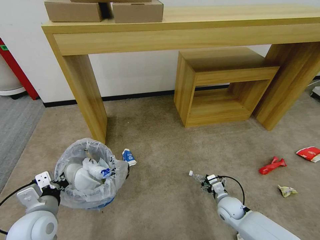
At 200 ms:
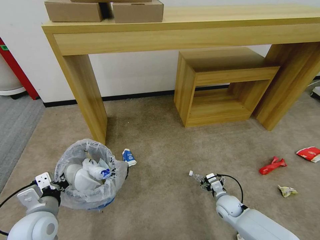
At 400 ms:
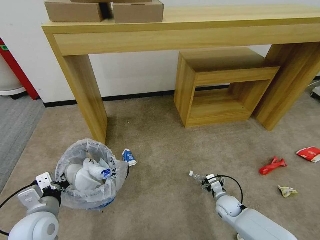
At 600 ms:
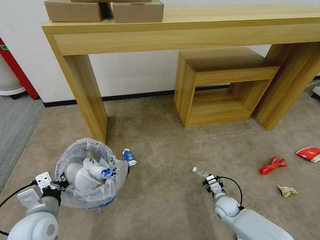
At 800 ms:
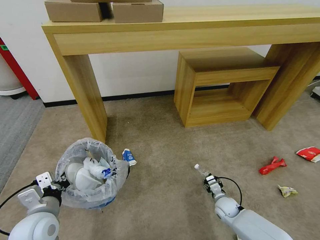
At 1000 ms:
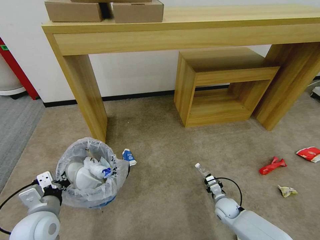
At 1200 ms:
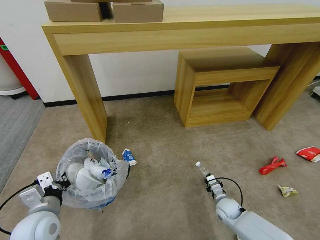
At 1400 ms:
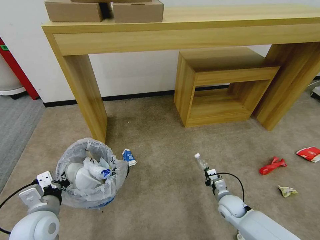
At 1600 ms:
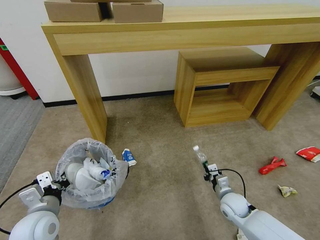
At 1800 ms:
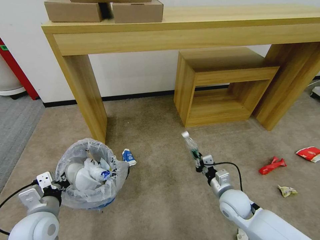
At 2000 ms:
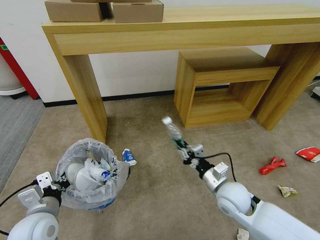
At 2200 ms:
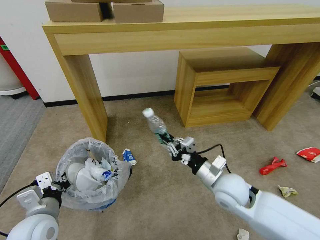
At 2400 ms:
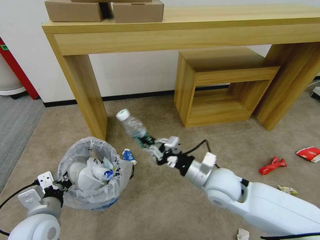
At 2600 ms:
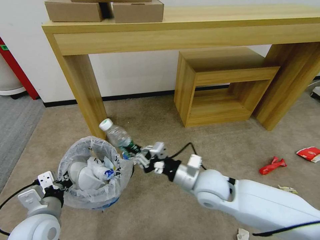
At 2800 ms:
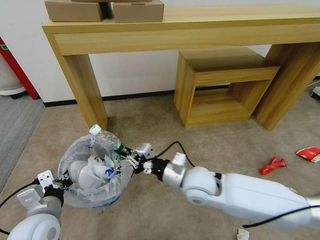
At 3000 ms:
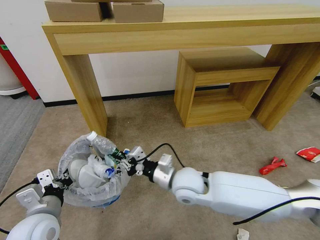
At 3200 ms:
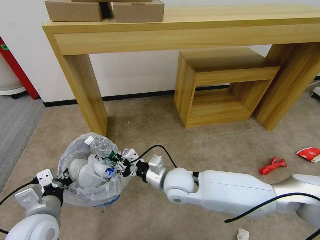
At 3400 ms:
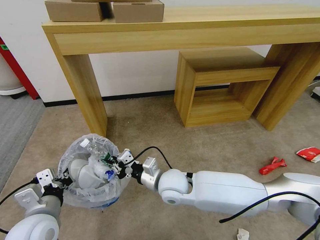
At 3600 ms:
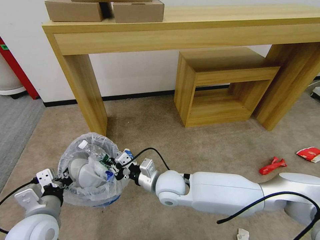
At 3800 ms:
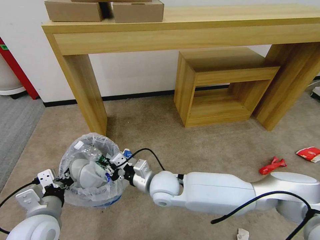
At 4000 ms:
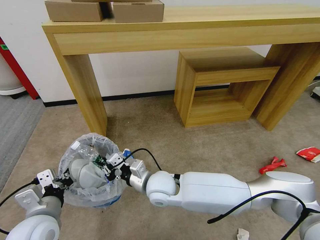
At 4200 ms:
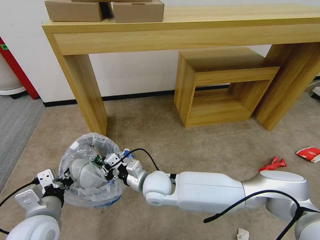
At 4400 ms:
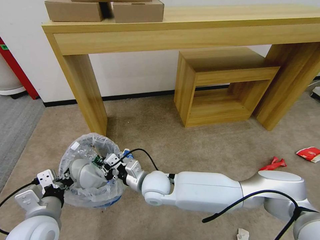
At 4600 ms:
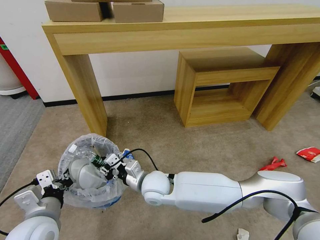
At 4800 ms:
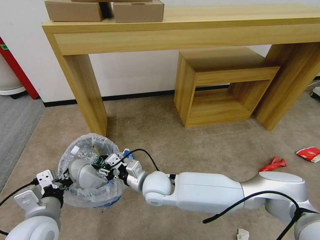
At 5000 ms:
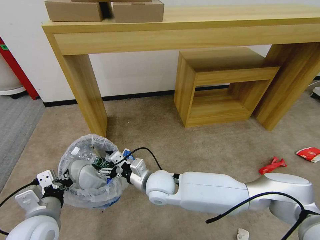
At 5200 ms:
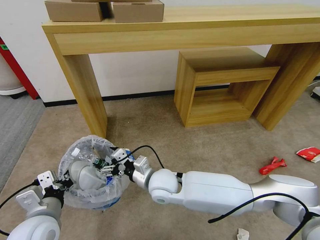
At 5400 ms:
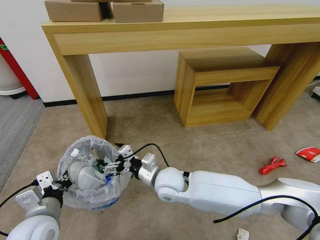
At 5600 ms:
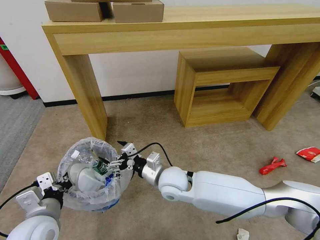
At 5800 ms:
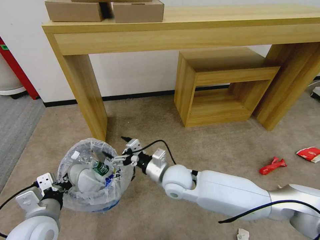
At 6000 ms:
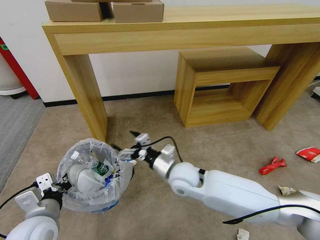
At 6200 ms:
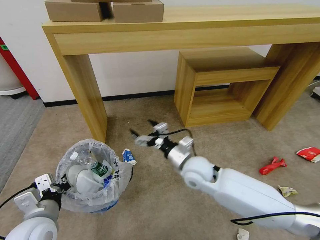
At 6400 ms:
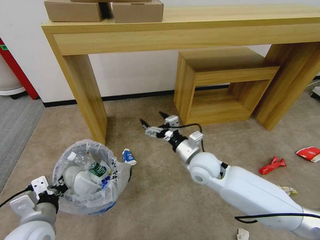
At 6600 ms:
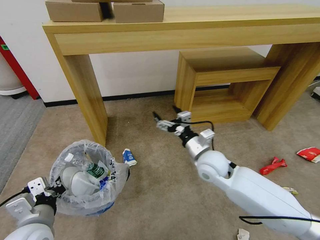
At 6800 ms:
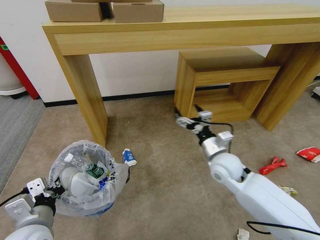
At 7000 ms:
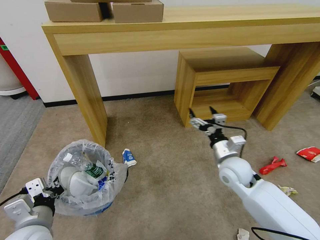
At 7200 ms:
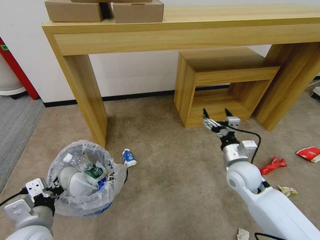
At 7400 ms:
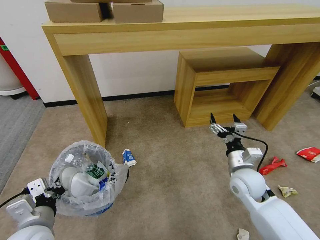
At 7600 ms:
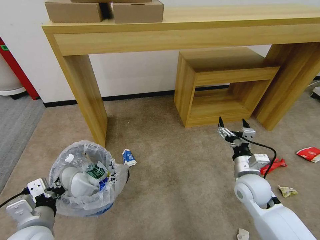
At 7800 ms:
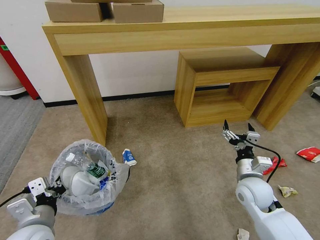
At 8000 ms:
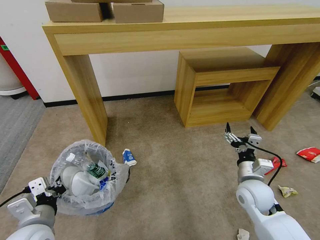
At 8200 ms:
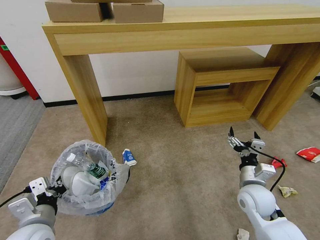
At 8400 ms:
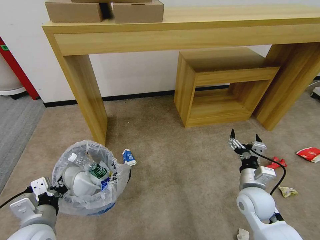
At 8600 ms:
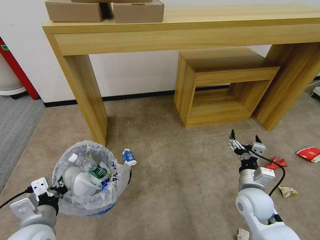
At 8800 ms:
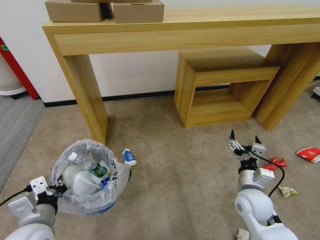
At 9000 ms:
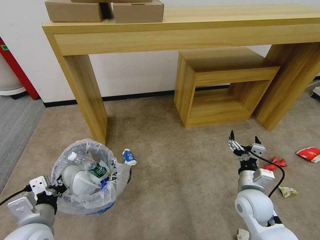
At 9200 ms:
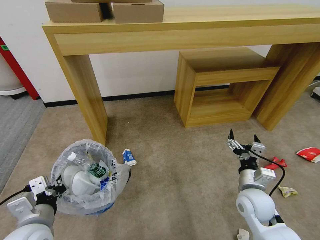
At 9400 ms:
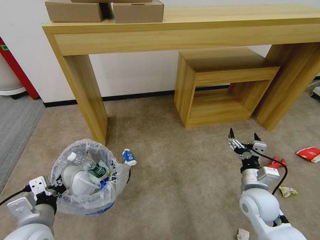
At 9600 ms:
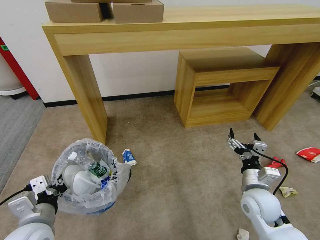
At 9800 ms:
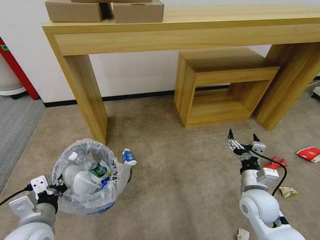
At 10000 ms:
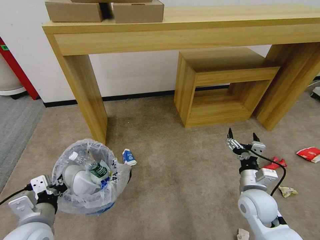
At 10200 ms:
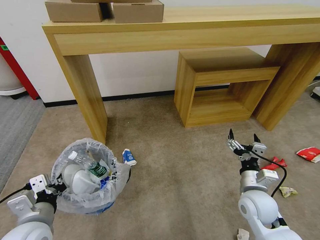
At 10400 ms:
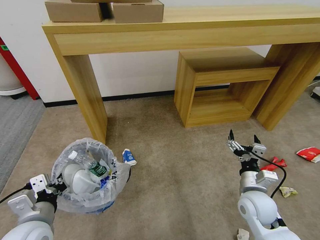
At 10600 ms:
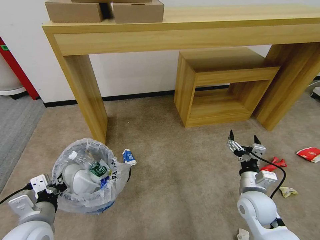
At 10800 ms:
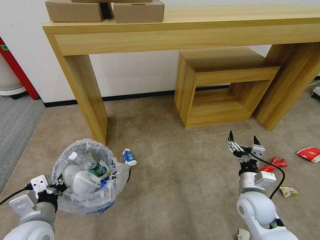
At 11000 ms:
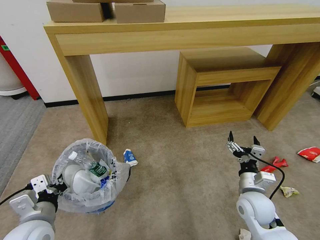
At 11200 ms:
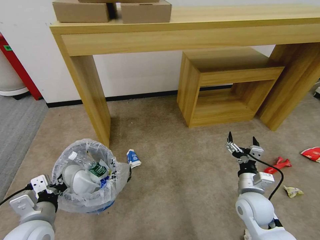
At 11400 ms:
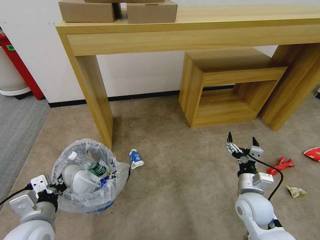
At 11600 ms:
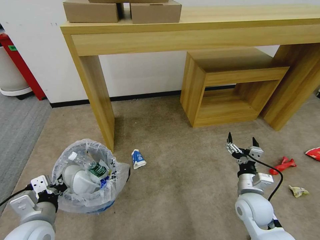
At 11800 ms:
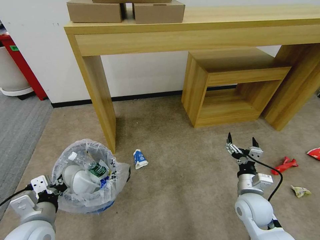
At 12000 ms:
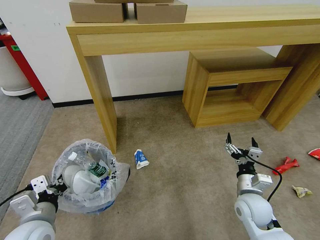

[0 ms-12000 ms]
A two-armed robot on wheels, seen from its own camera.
Task of the whole recording: Pick up the trash bin and place the garbage on the floor into it.
0 ms to 1600 ms: The right gripper closes.
1600 ms to 3000 ms: The right gripper shifts roughly 30 cm to the left and upward.
3000 ms to 4400 ms: The right gripper is displaced to the left by about 10 cm.
4400 ms to 6000 ms: The right gripper is displaced to the right by approximately 10 cm, and opens up.
6000 ms to 7600 ms: The right gripper is displaced to the right by about 20 cm.
7600 ms to 10400 ms: The grippers stay close to where they were, moving slightly.

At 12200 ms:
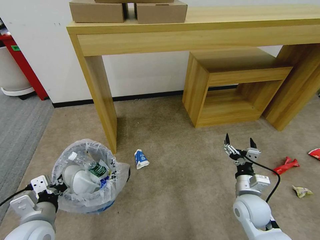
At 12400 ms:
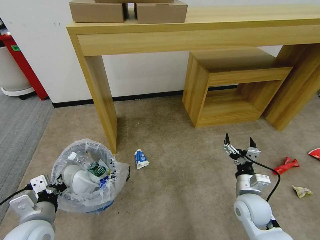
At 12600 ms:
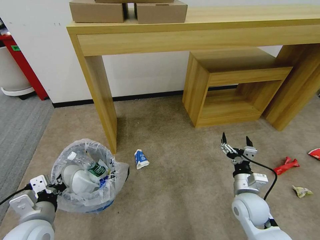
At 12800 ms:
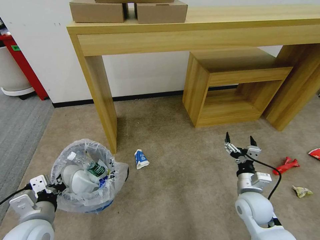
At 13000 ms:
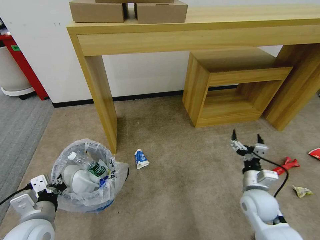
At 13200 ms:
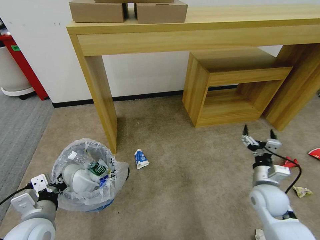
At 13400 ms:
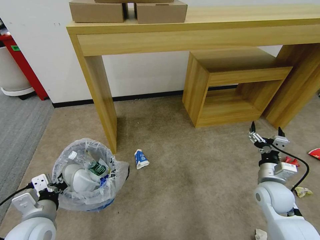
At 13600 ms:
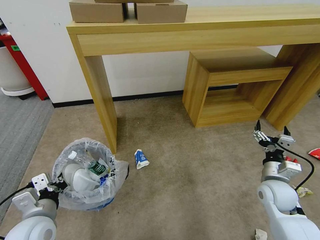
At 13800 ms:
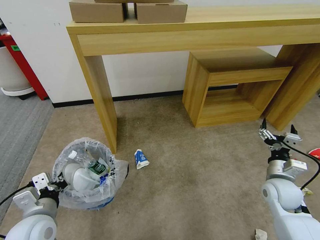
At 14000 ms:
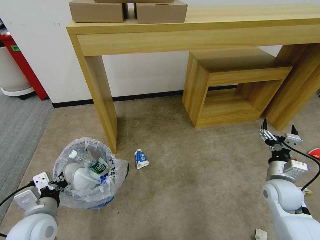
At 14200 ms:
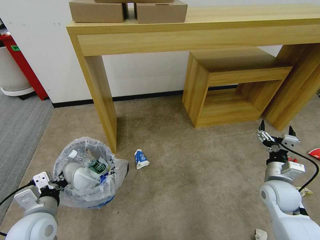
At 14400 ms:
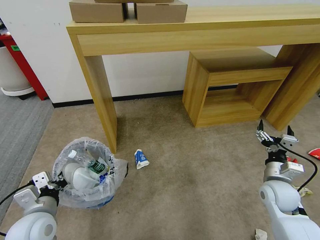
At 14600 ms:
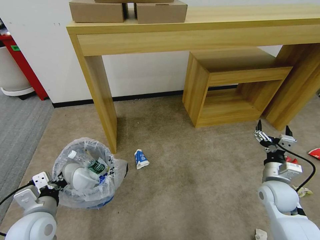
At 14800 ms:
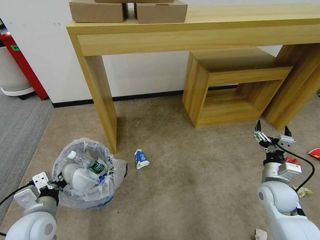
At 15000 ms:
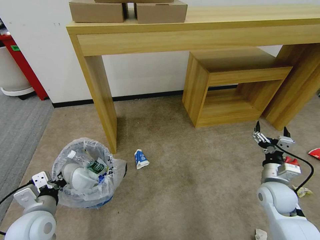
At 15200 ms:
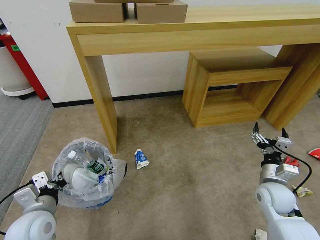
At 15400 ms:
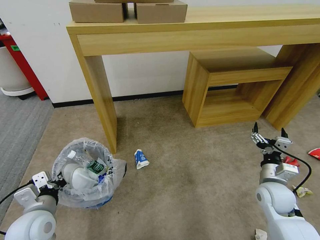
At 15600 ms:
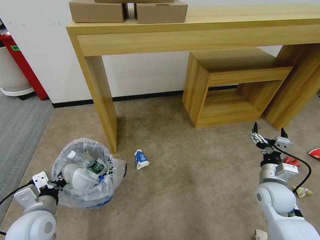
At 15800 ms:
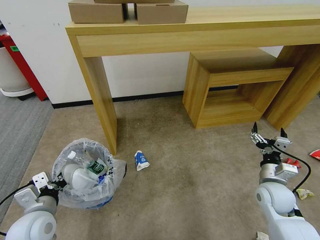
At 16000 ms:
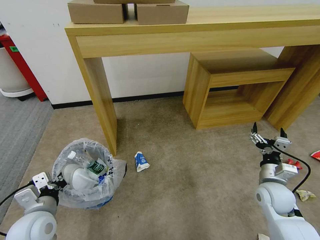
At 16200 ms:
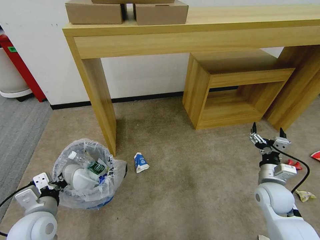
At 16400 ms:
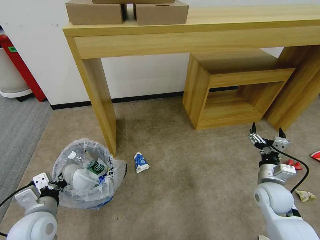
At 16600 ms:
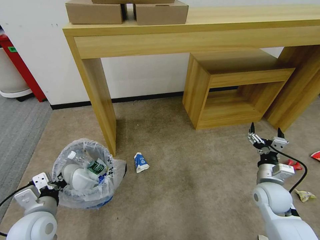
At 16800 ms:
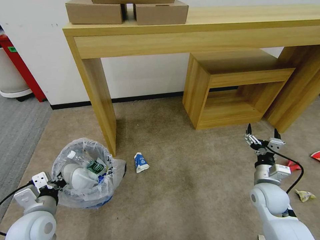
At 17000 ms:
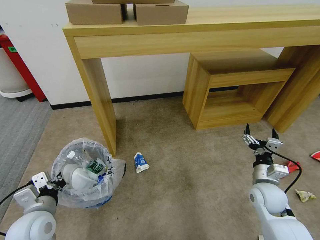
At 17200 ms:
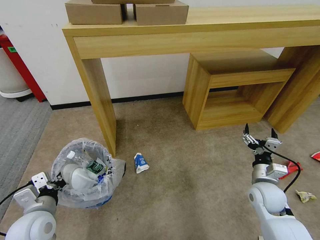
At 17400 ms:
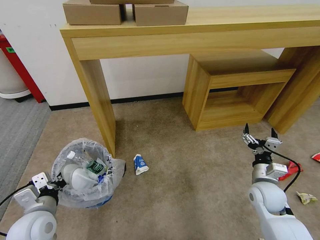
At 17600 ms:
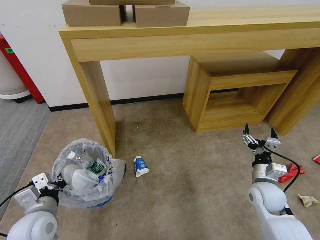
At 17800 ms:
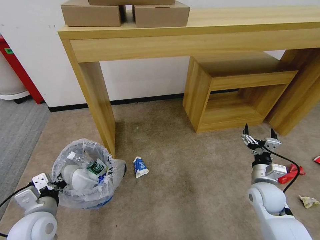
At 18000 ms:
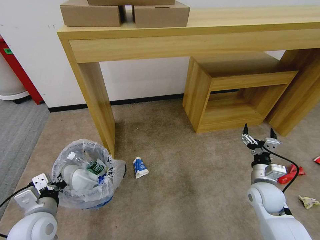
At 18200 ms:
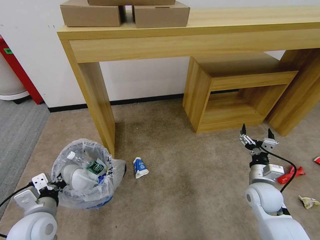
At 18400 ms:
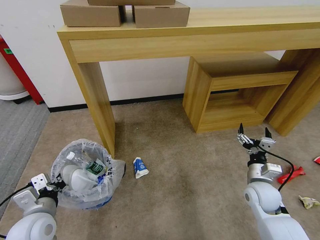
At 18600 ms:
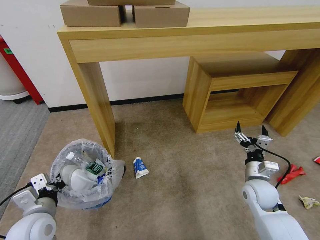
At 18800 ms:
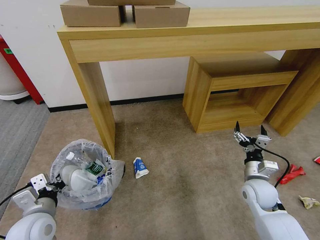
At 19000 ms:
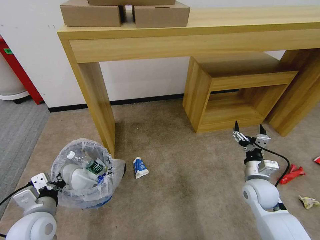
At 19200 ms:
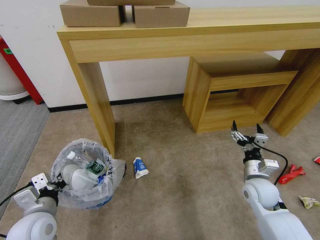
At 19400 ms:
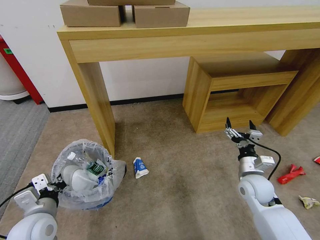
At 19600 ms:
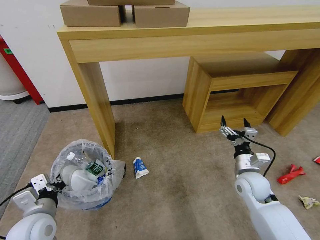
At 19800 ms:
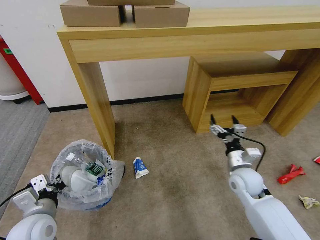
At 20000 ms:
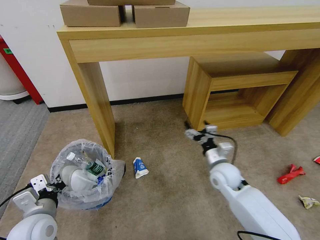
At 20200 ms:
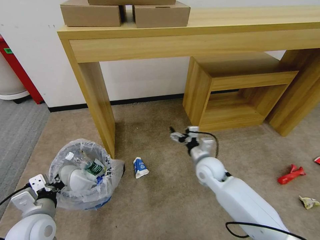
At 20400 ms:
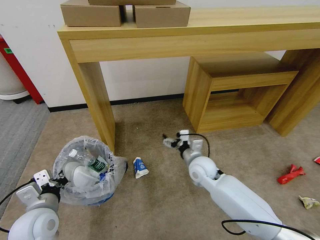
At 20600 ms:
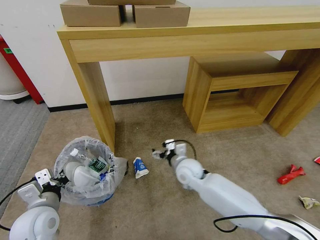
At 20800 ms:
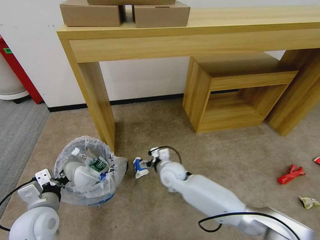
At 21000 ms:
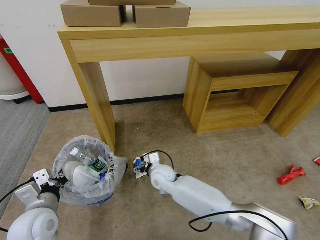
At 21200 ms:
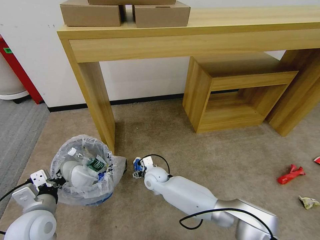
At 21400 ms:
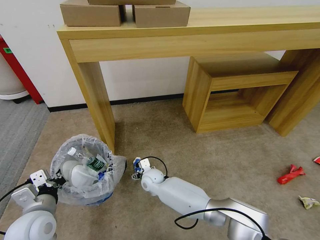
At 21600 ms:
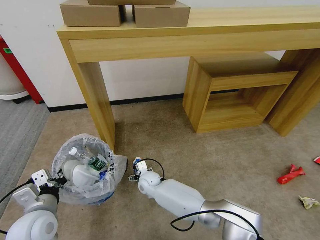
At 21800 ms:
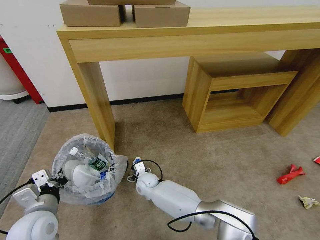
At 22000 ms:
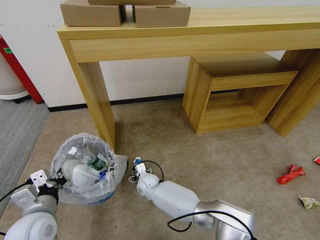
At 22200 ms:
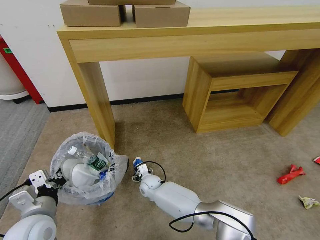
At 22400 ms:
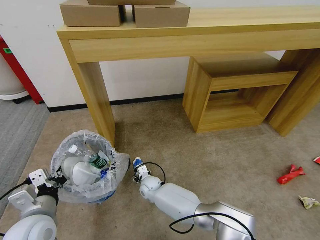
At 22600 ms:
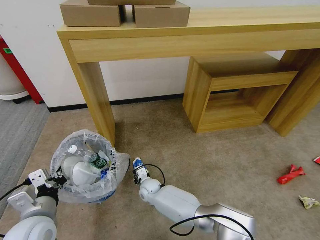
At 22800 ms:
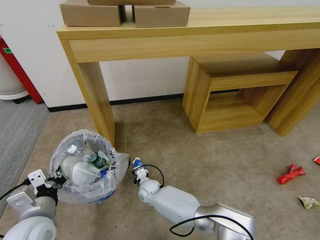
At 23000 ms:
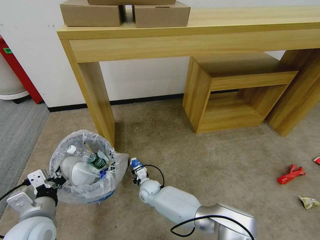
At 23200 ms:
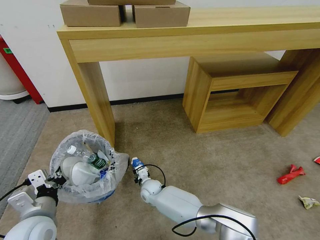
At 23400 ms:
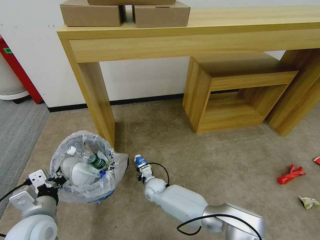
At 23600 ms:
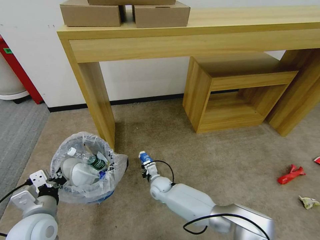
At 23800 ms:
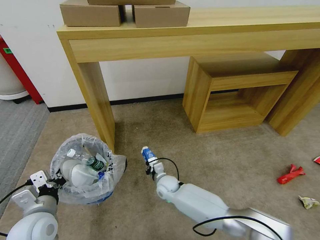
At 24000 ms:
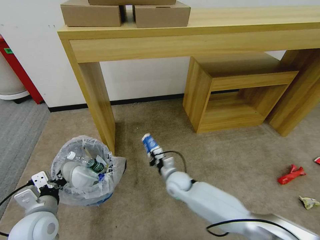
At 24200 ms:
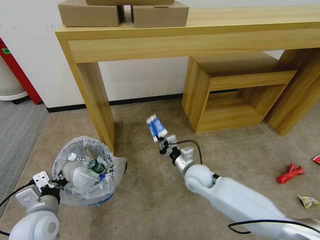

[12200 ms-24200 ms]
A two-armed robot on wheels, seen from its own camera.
Task of the whole recording: Pick up the trash bin and place the garbage on the floor into it.
12200 ms to 13800 ms: The right gripper goes roughly 10 cm to the right.
13800 ms to 15200 ms: There are only small adjustments of the grippers.
15200 ms to 16600 ms: Both grippers stay about where they are.
16600 ms to 18200 ms: The grippers stay close to where they were, moving slightly.
18200 ms to 19800 ms: The right gripper is displaced to the left by approximately 5 cm.
19800 ms to 21200 ms: The right gripper shifts some 30 cm to the left.
21200 ms to 22600 ms: The right gripper heads downward, covering some 10 cm, and closes up.
22600 ms to 24200 ms: The right gripper heads to the right and upward, covering about 25 cm, and closes.
